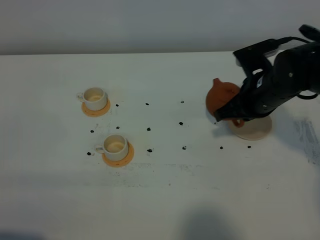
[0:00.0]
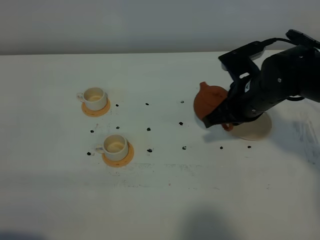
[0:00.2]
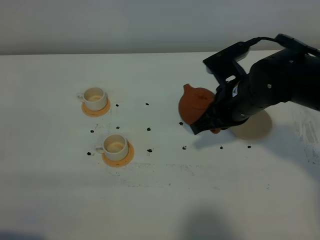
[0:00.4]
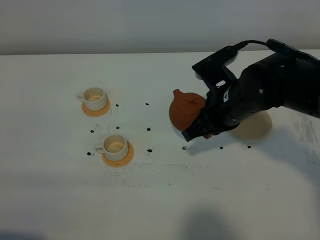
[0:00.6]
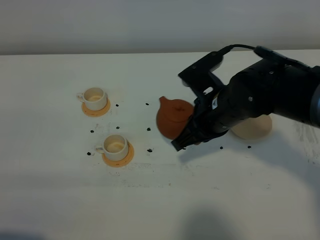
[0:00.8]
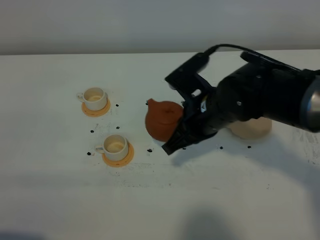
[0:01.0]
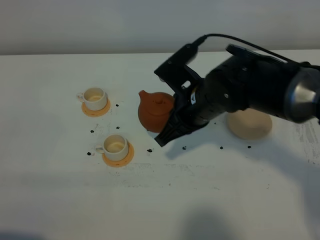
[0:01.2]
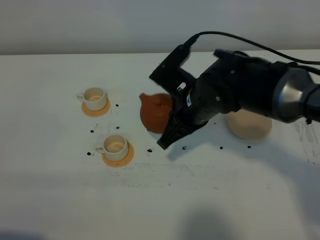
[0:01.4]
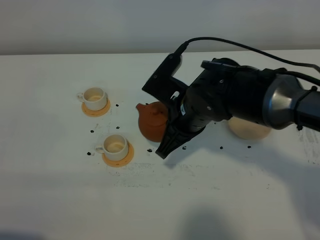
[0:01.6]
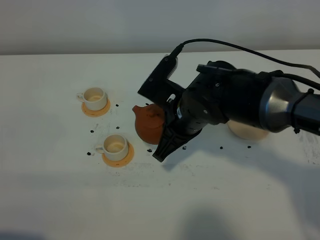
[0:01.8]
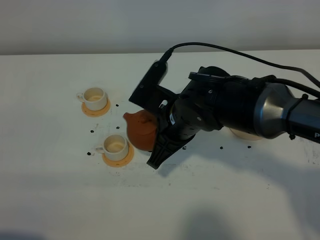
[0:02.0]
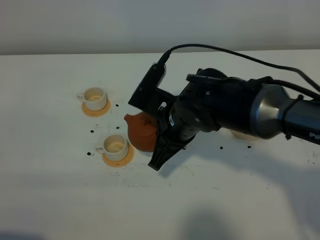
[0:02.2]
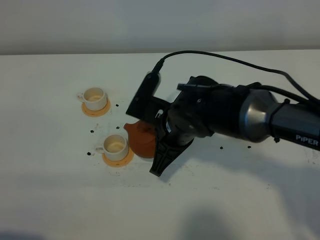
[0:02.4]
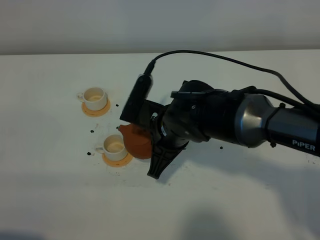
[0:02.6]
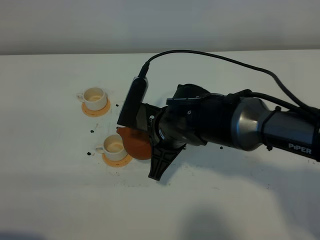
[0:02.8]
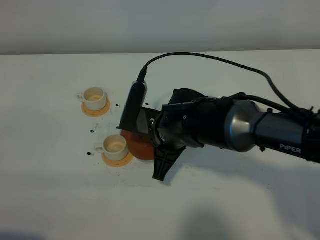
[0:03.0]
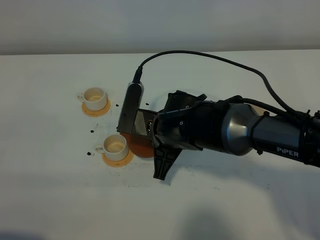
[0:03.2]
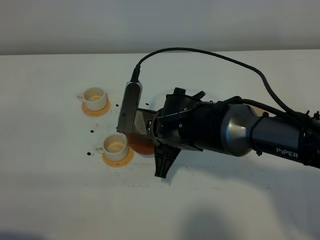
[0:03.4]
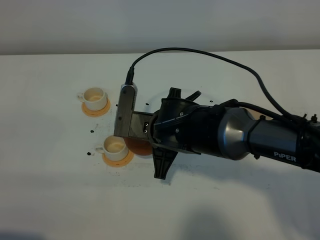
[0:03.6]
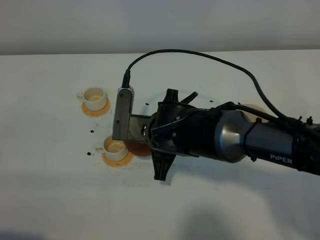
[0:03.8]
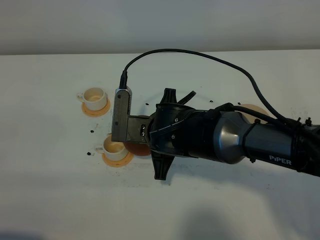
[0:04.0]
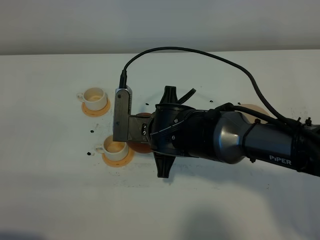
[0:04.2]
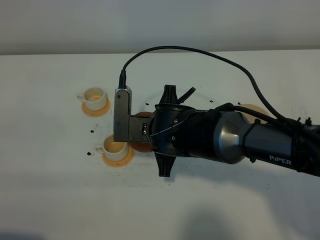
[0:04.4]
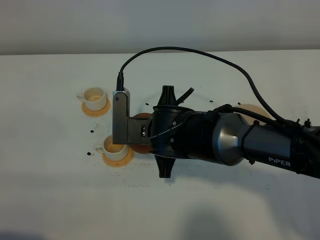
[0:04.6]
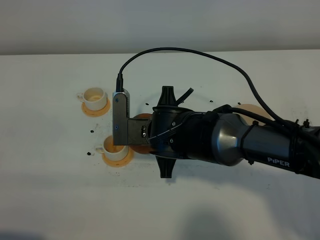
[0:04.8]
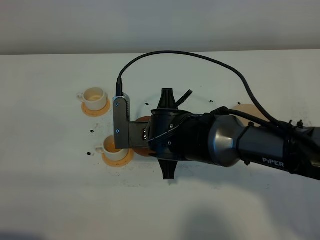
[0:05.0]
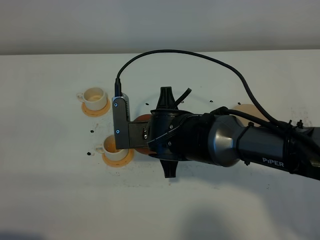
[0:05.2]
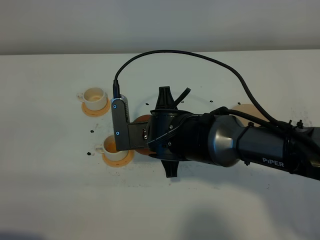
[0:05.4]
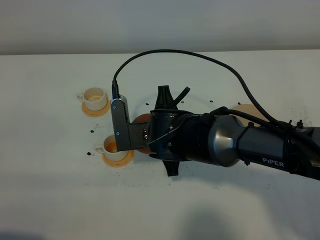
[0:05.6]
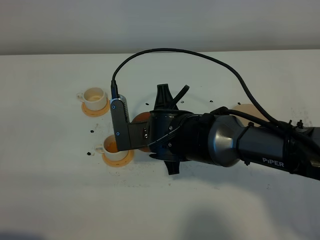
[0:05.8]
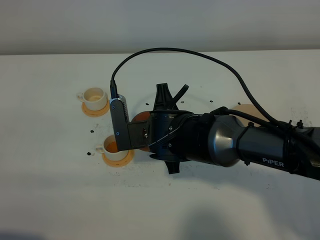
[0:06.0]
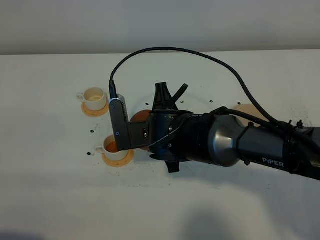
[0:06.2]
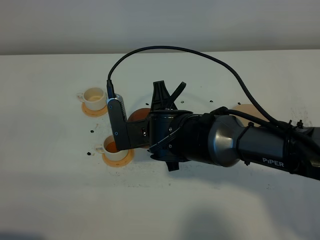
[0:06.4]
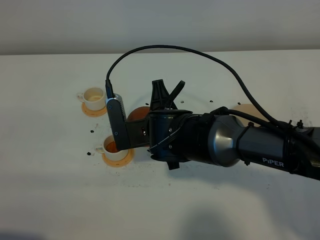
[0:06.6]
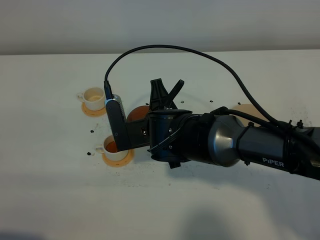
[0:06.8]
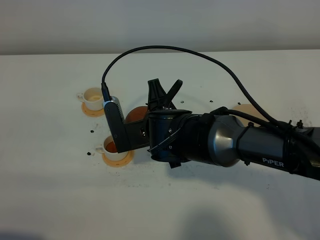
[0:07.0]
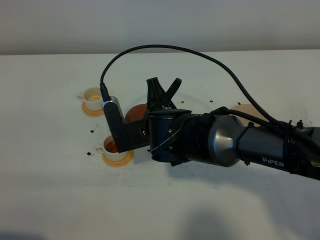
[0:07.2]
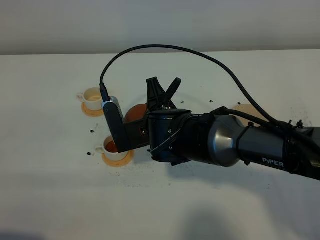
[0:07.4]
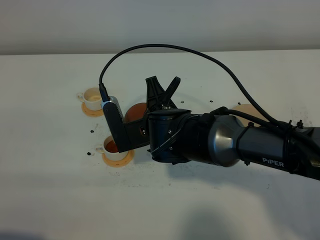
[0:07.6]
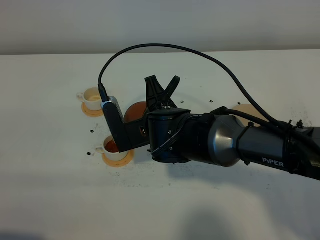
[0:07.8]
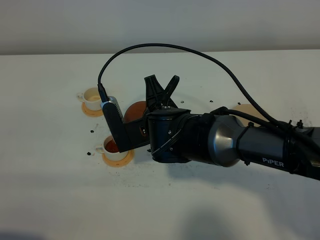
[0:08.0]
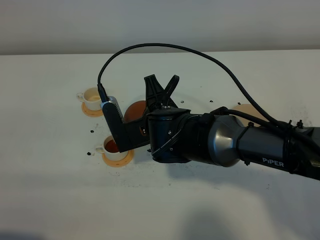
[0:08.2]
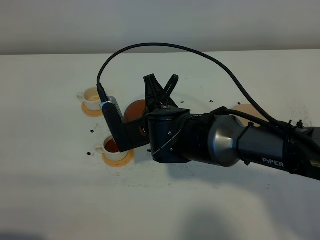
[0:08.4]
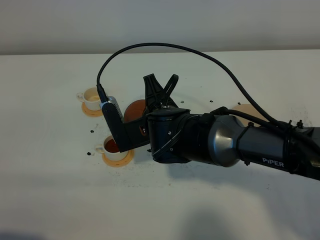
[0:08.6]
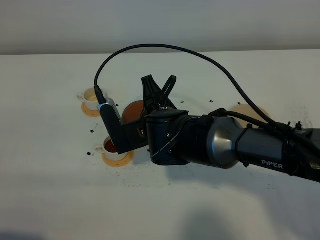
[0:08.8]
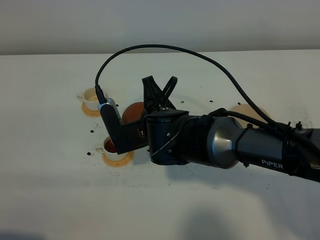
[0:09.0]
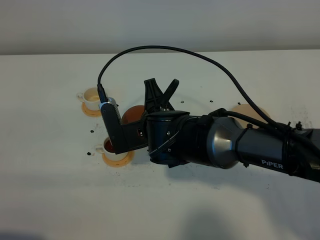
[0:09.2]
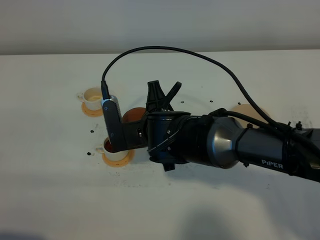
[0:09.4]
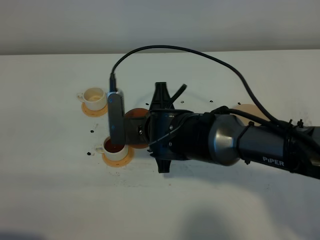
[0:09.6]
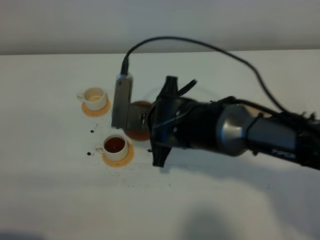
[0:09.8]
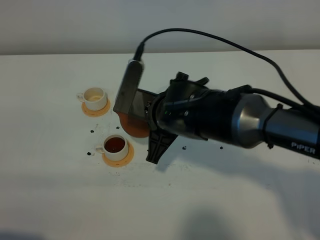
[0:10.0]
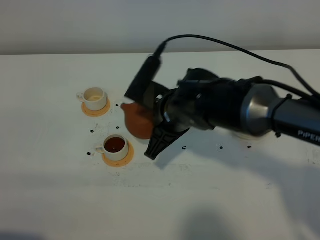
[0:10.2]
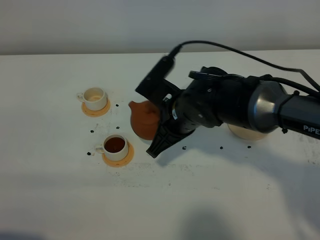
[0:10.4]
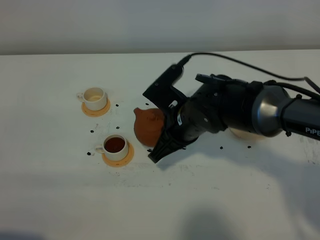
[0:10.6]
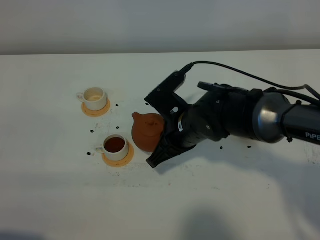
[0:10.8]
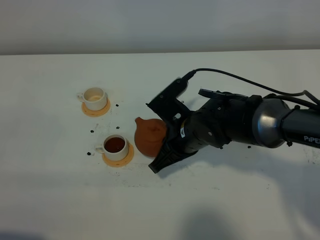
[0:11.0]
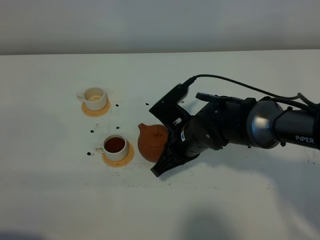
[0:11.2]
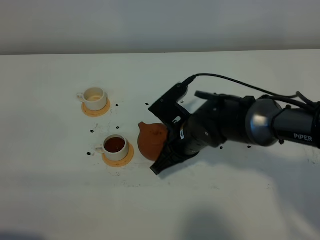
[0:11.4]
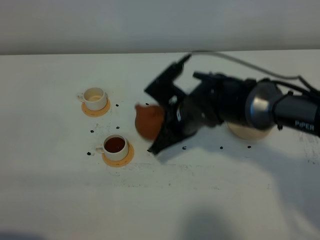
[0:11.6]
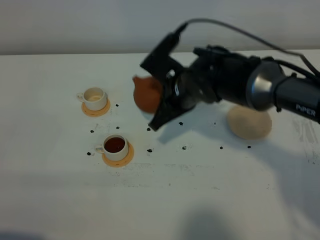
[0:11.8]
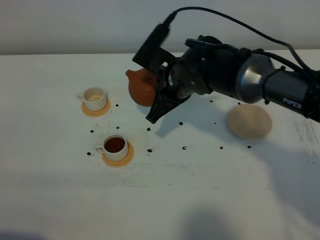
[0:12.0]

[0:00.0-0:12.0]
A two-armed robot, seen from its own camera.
Task of the whole recording: grasp the brown teapot and pour the tea into the two white teacups one by one, put the brown teapot back in its original place.
0:00.0 to 0:01.6: The right gripper shifts about 15 cm to the left and backward.
0:01.6 to 0:03.0: The right gripper shifts by some 5 cm.
0:03.0 to 0:04.4: The grippers make only small movements.
0:04.4 to 0:06.0: The grippers make only small movements.
0:06.0 to 0:07.6: The grippers make only small movements.
0:07.6 to 0:09.0: Both grippers stay put.
0:10.4 to 0:12.0: The right gripper is displaced forward by roughly 5 cm.

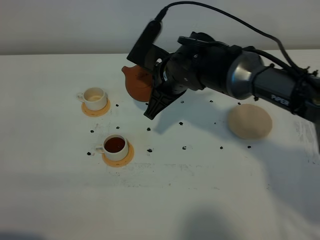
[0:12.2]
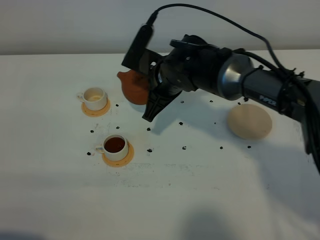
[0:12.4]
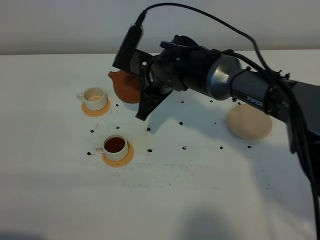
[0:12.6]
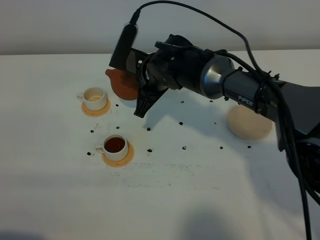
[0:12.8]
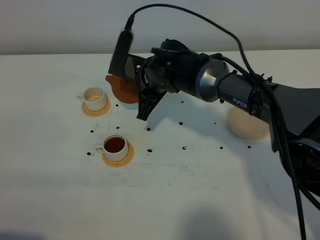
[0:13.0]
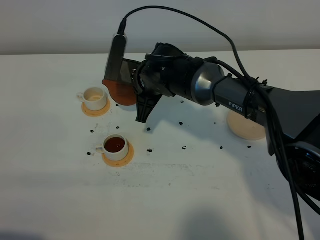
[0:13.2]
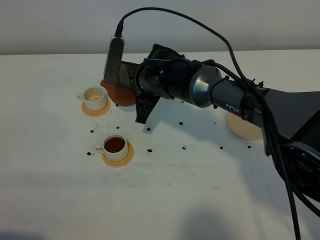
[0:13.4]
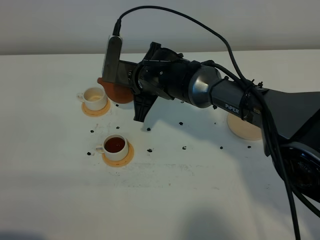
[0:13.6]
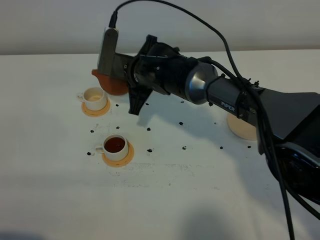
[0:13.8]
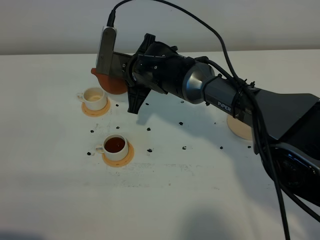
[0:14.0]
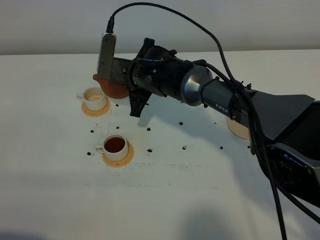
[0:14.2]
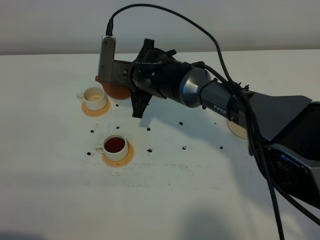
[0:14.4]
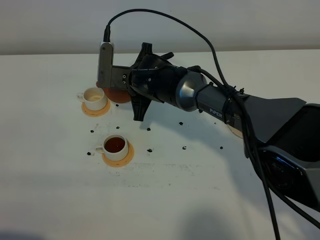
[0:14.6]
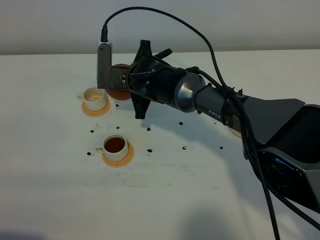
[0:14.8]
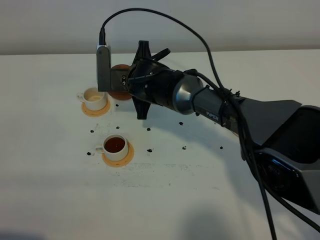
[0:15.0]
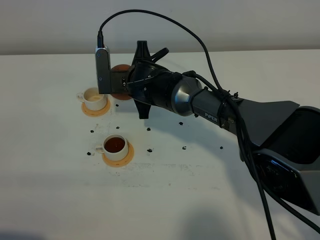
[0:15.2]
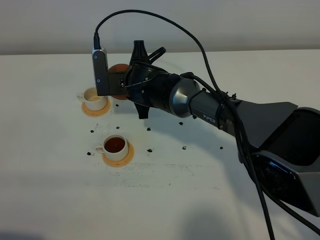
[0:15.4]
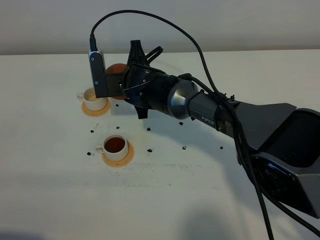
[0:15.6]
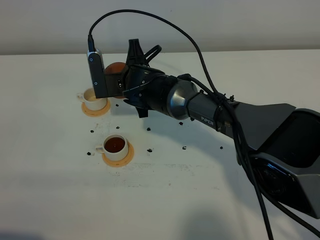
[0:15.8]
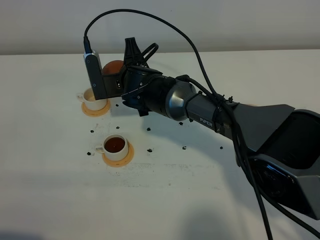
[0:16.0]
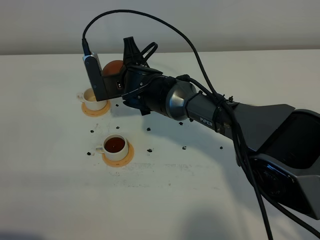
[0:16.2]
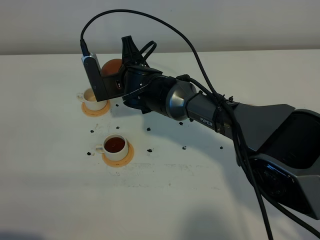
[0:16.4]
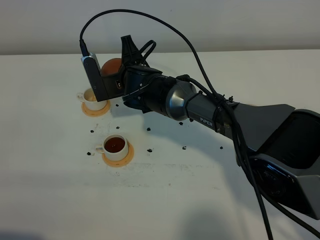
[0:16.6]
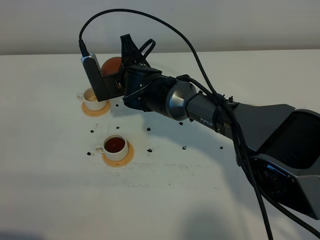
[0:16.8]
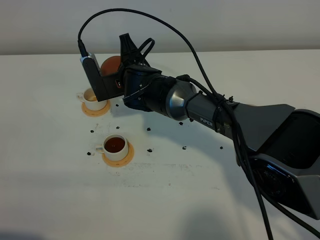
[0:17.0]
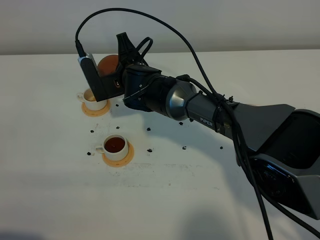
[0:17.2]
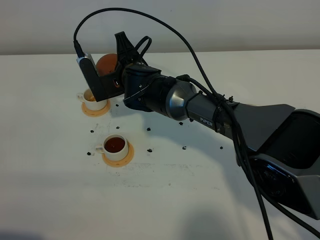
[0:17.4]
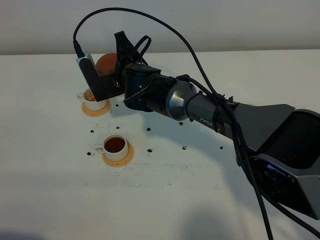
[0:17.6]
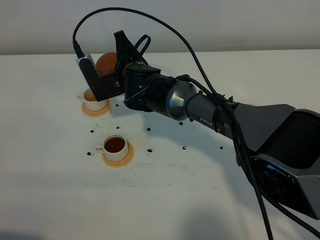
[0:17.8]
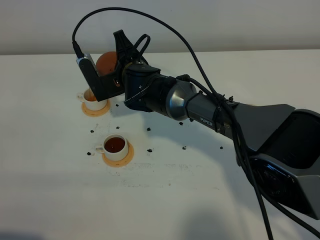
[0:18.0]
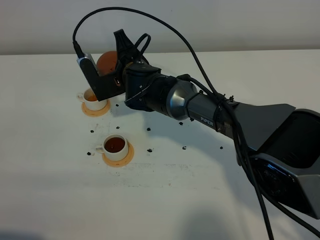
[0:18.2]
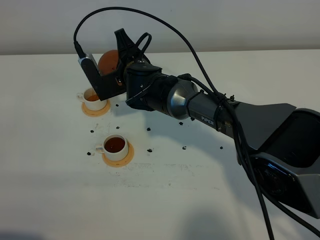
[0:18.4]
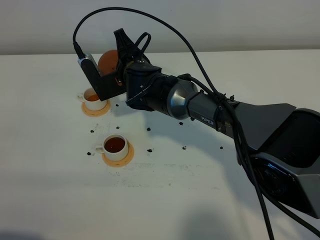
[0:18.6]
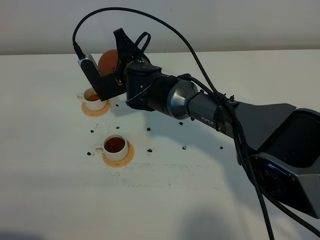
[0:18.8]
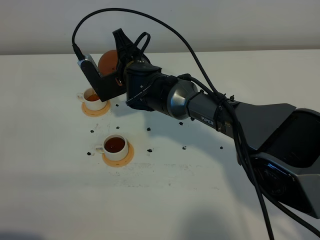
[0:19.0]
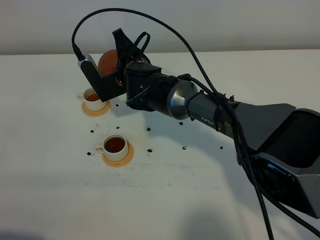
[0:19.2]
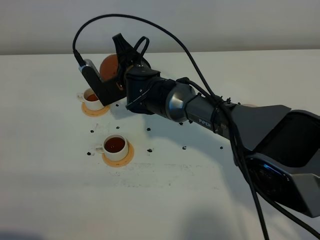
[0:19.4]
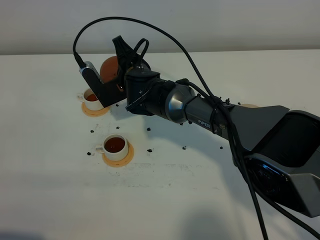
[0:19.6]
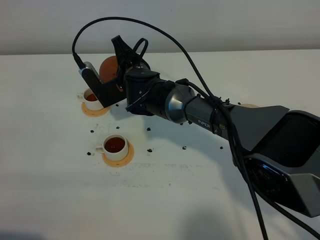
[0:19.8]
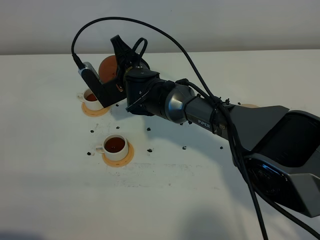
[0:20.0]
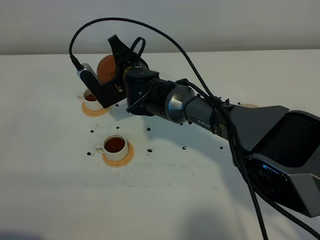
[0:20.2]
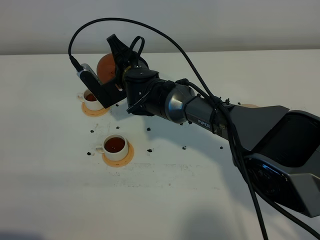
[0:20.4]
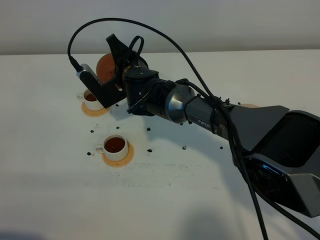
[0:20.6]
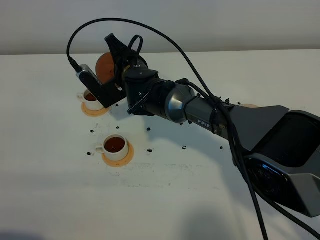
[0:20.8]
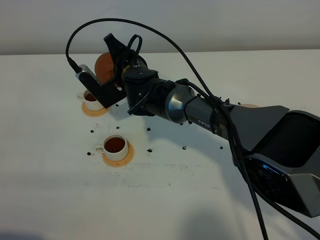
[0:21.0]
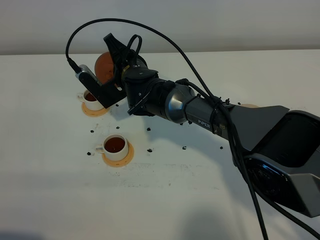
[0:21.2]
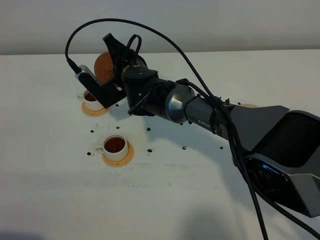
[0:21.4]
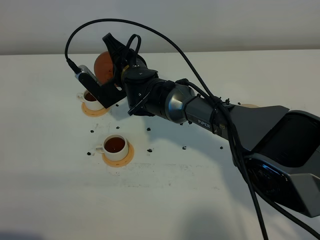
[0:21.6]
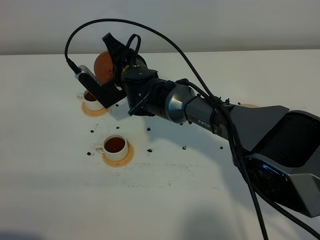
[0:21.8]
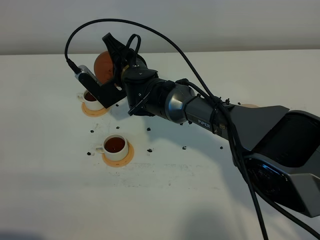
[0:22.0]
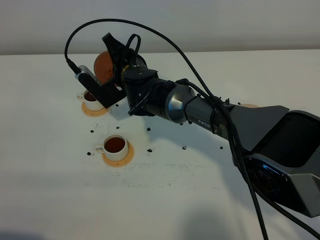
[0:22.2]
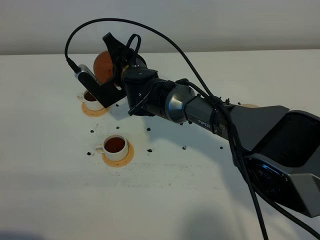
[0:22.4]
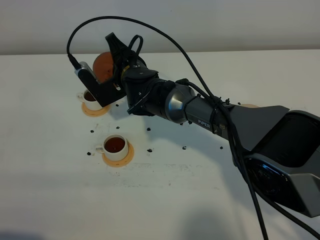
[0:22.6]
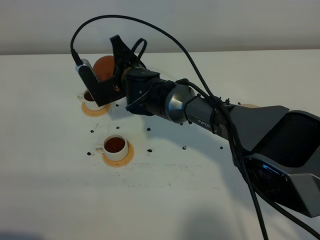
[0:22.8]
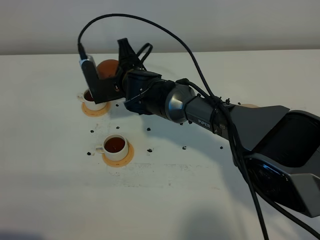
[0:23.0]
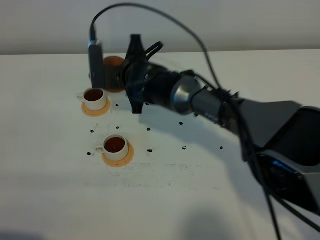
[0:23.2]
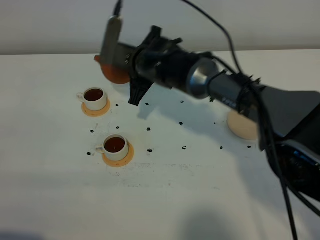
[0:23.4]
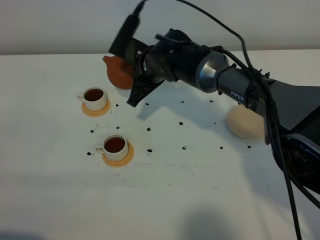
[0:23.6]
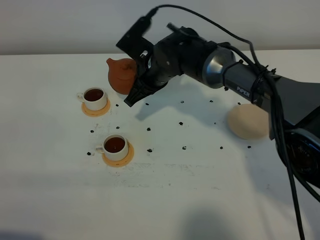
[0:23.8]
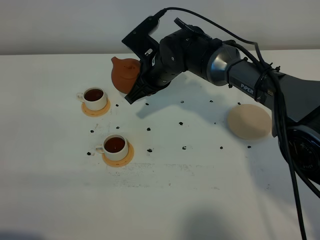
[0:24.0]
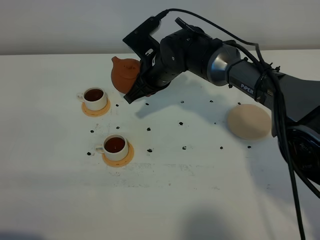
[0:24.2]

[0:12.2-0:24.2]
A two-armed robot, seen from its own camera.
Task of the whole recording: grasp the brown teapot and pour the tea into the two white teacups one by one, put the brown teapot back in its original place.
Step, 0:12.2 to 0:23.0: Pour tea into the teacup with the right gripper.
0:12.2 to 0:13.8: The right gripper moves to the left, about 5 cm.
0:13.8 to 0:15.2: The grippers move only a little.
0:15.2 to 0:16.6: The grippers move only a little.
0:16.6 to 0:19.8: The grippers make only small movements.
0:19.8 to 0:22.6: The grippers move only a little.
0:22.6 to 0:24.2: The right gripper travels to the right by approximately 5 cm.
